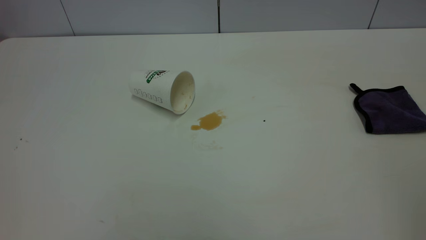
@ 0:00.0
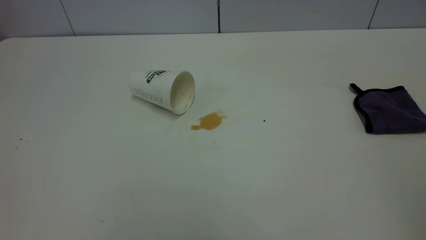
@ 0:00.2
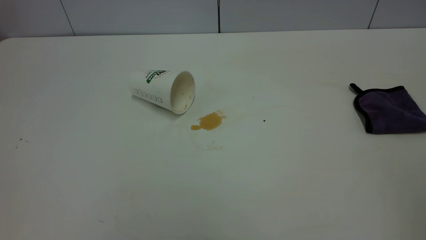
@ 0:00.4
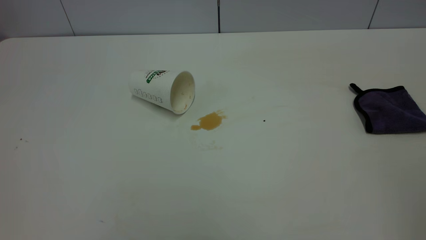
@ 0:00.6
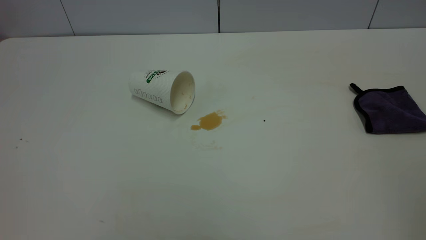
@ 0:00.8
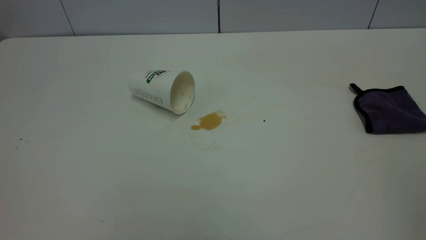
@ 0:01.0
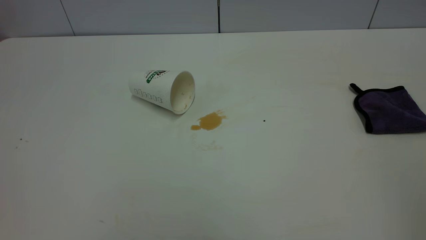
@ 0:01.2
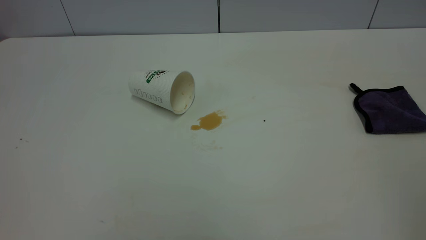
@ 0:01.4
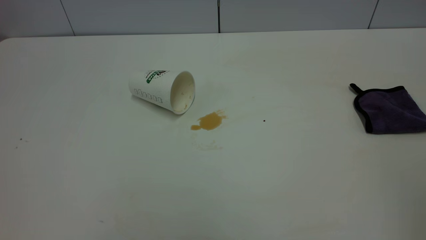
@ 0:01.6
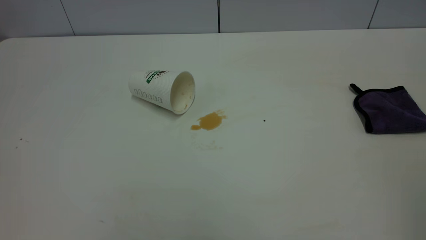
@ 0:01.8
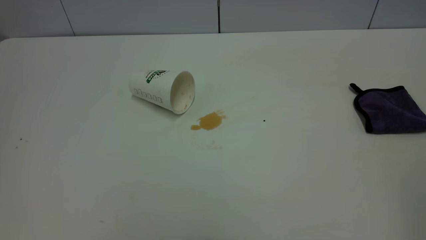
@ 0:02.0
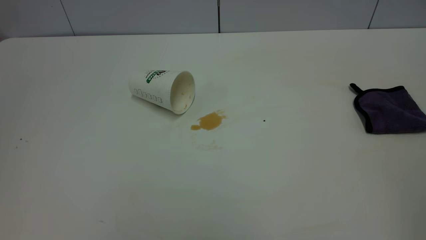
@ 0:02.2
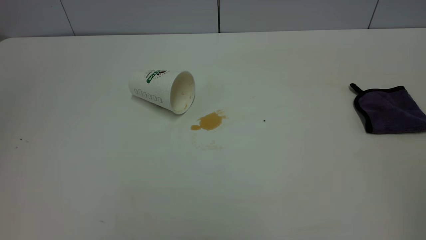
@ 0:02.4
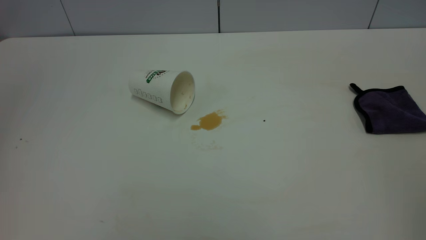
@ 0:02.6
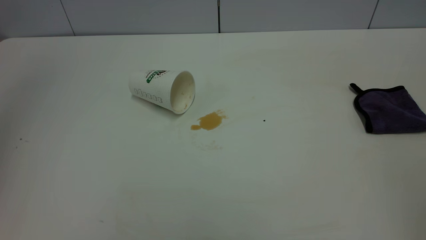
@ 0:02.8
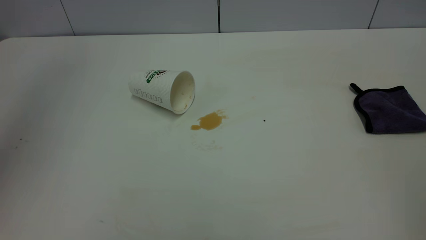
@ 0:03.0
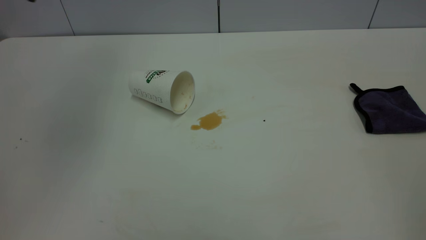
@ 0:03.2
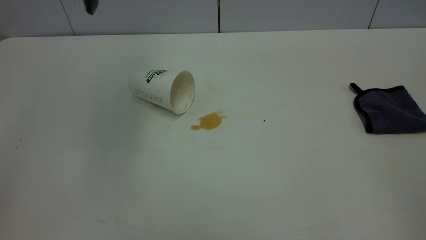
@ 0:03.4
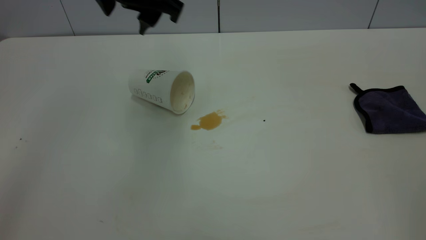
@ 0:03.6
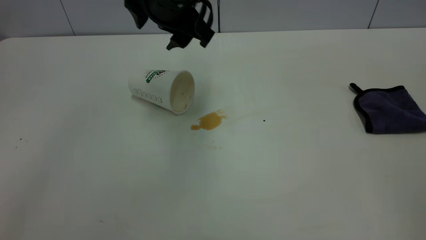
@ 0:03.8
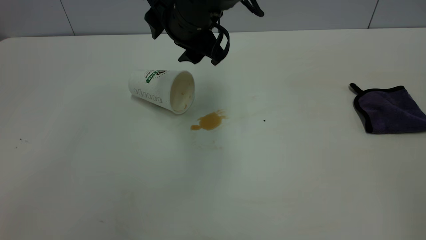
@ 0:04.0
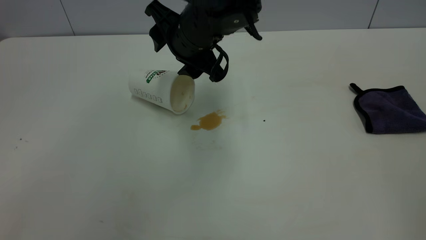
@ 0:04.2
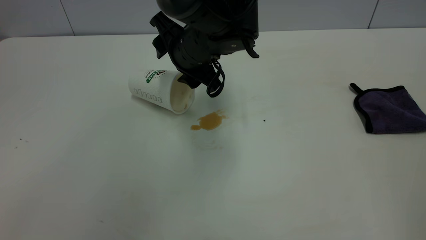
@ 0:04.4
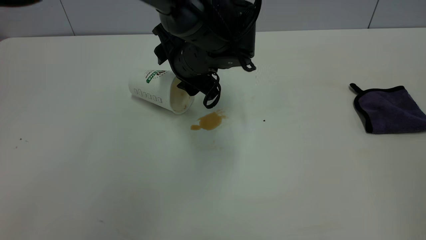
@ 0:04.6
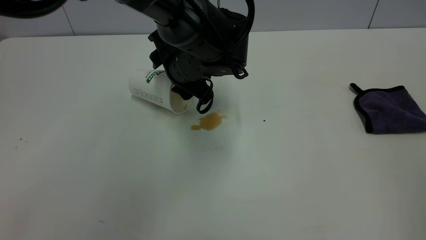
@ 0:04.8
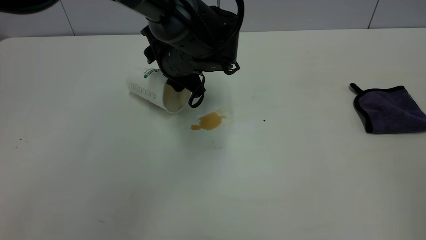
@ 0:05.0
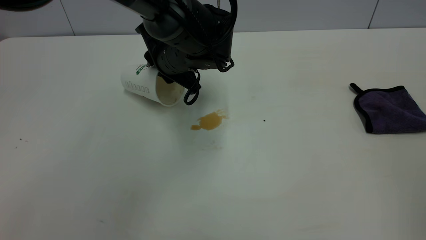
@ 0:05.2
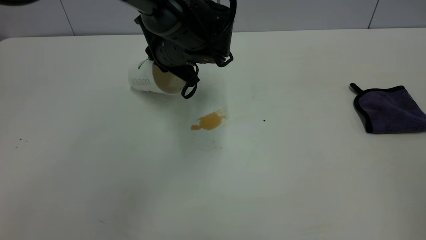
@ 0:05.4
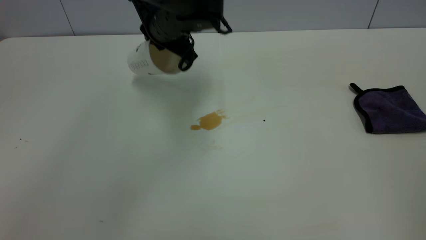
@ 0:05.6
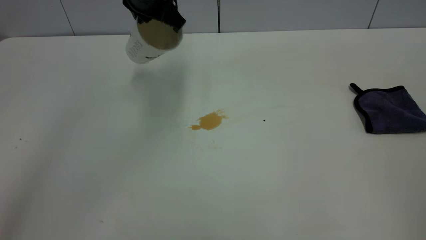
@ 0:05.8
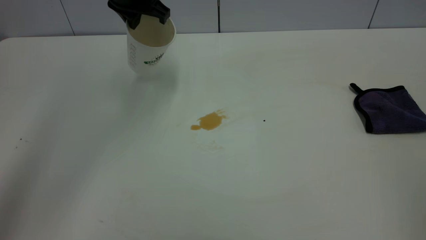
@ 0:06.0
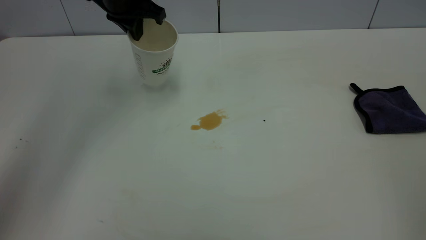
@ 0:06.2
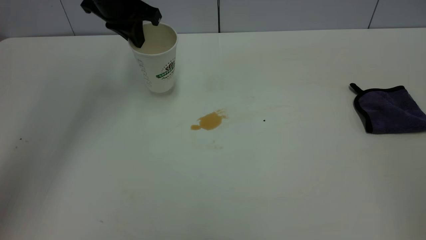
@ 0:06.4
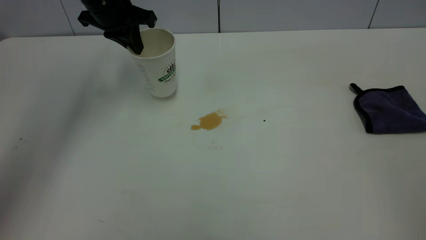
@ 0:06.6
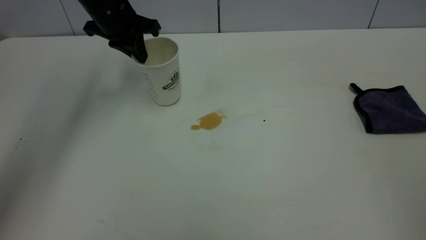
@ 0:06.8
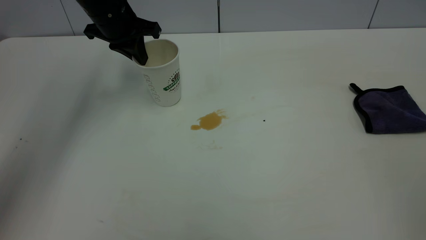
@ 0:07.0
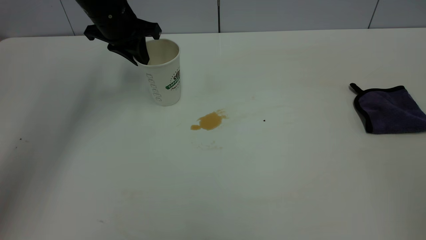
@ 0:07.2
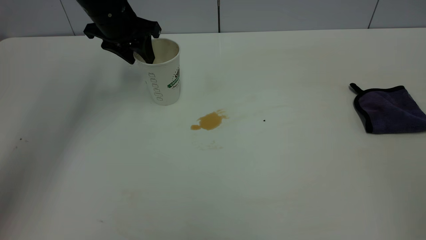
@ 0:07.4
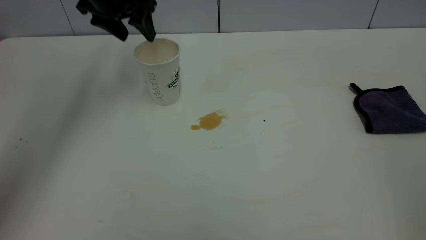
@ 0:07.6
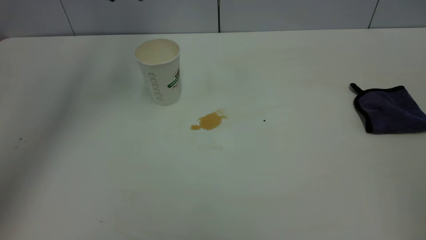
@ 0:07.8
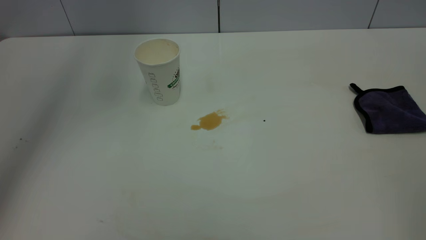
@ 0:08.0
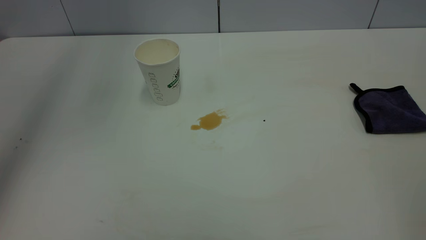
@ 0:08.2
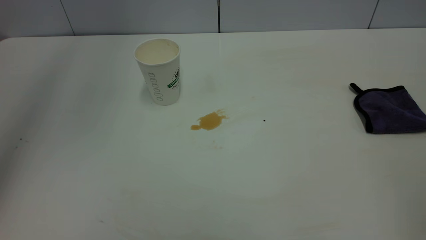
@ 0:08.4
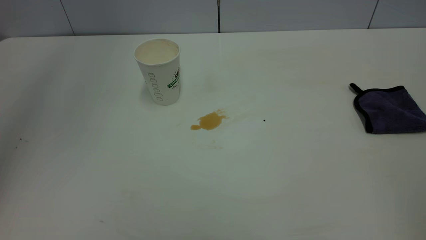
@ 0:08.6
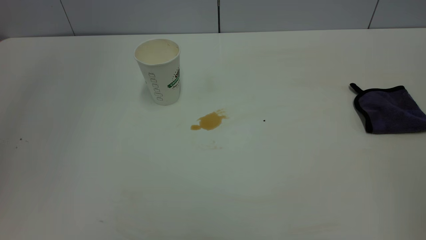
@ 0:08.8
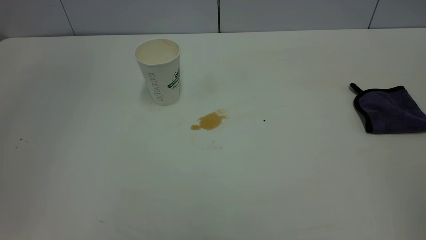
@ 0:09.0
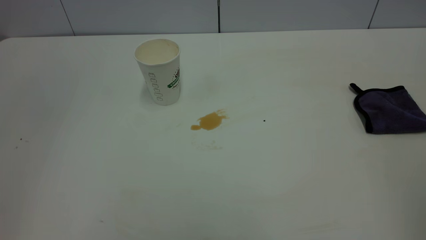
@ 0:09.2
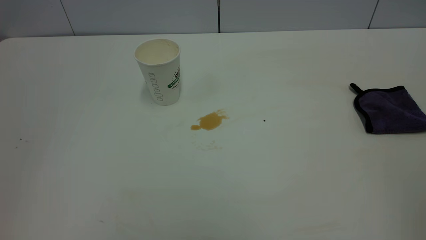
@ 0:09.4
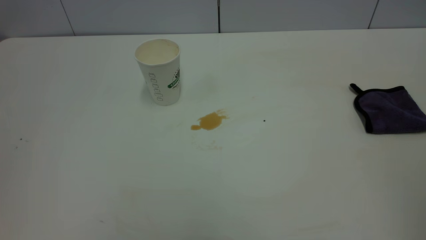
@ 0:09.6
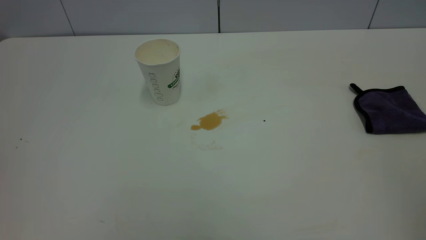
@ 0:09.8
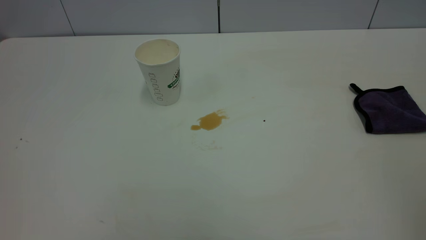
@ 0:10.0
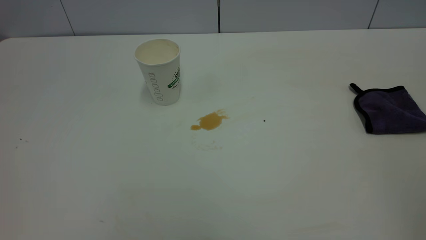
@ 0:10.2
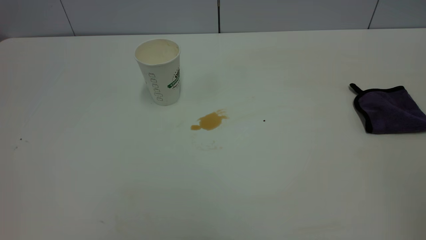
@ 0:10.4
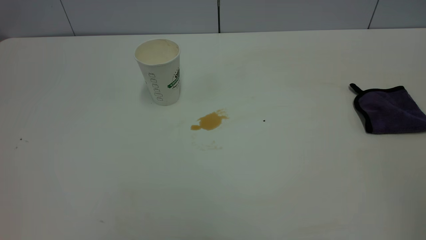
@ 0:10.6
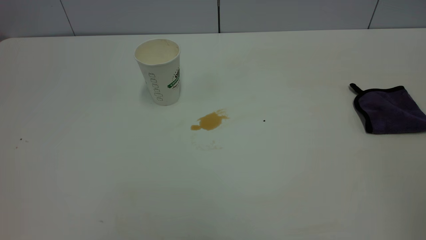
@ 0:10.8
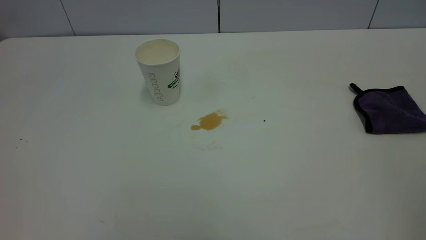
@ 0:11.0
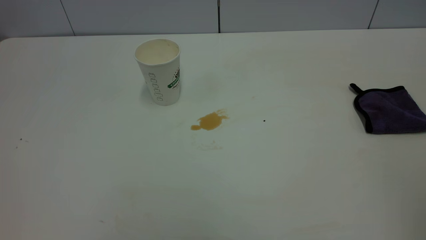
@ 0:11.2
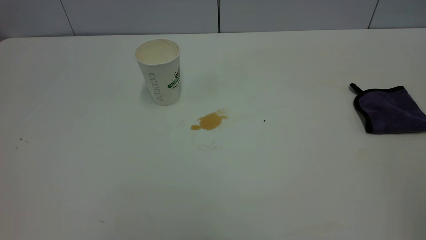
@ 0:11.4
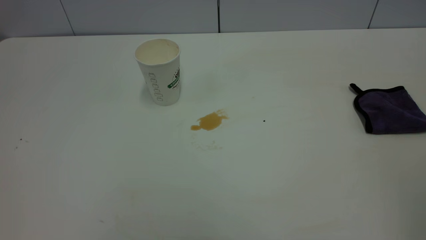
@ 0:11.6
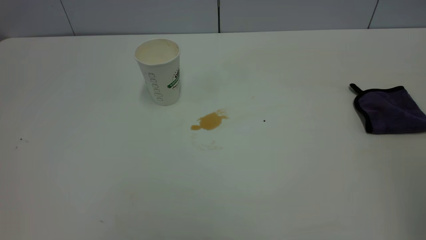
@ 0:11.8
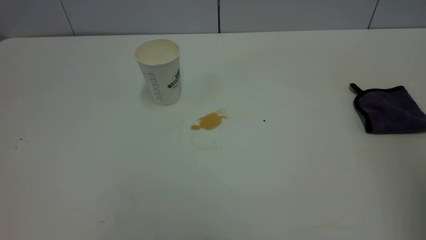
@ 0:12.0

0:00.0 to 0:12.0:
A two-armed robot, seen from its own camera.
Task of the whole recording: the left gripper pick up the fallen cup and place it upright, the right gripper grasp the purple rag and wipe the tea stain on the table, the right gripper put the purple rag back in its original position.
Step, 0:00.0 to 0:07.6: Stand the paper cup upright.
0:00.0 to 0:01.6: The two grippers keep their place.
0:01.6 to 0:03.0: The left gripper heads forward, covering approximately 30 cm, and opens its fingers.
0:03.0 to 0:04.4: The left gripper moves to the right and downward, approximately 35 cm.
0:04.4 to 0:06.0: The left gripper shifts approximately 15 cm to the left, upward and forward, and closes up.
0:06.0 to 0:07.6: The left gripper moves to the left, about 5 cm, and opens its fingers.
0:07.6 to 0:09.0: The left gripper heads backward and upward, covering approximately 35 cm, and closes up.

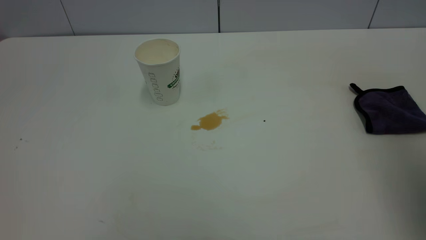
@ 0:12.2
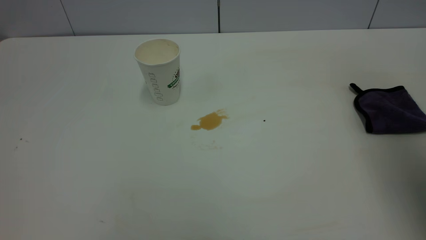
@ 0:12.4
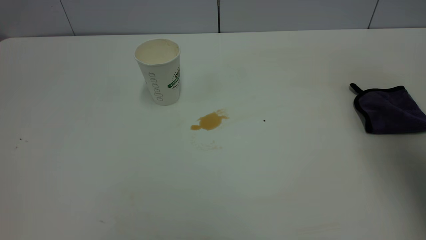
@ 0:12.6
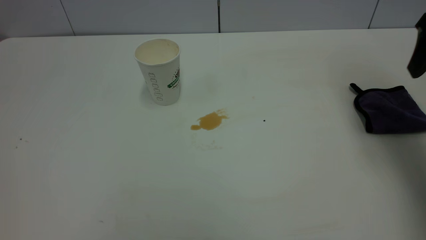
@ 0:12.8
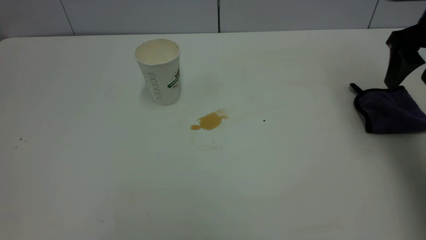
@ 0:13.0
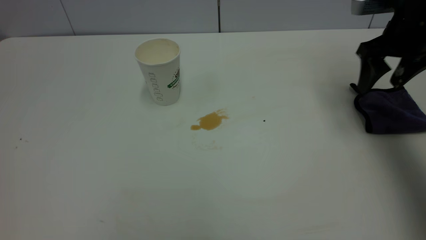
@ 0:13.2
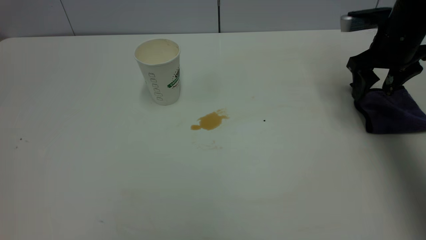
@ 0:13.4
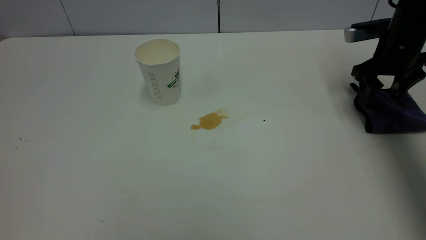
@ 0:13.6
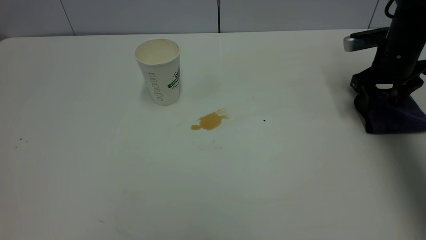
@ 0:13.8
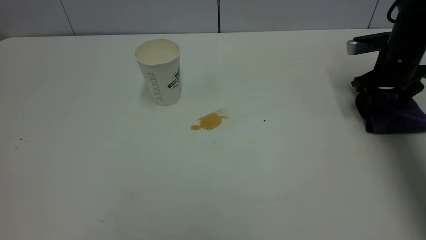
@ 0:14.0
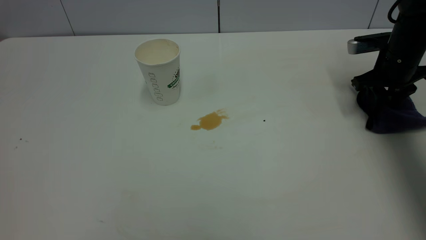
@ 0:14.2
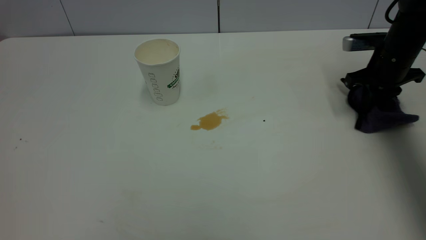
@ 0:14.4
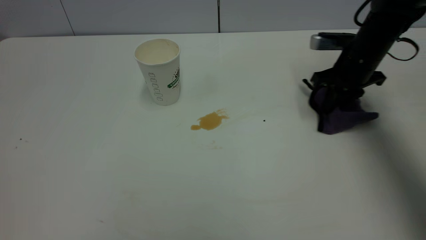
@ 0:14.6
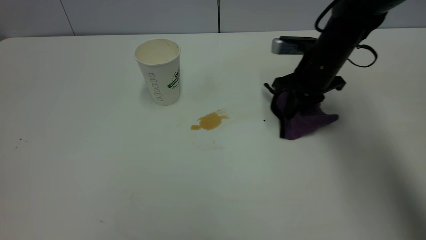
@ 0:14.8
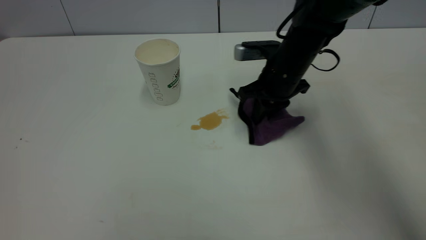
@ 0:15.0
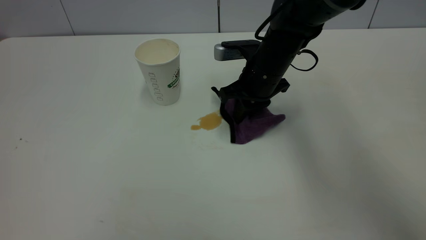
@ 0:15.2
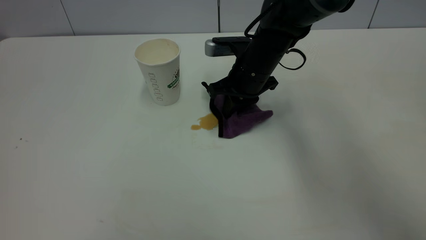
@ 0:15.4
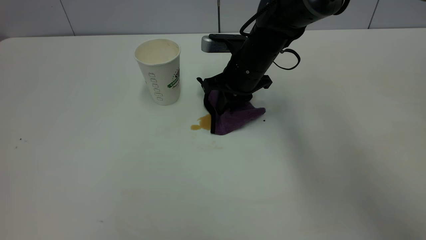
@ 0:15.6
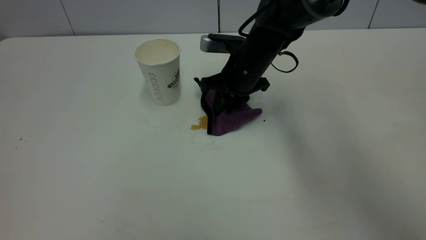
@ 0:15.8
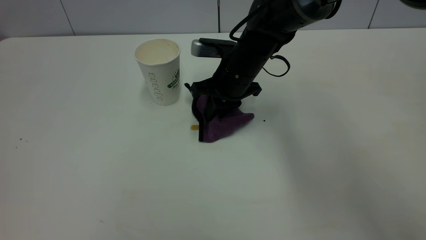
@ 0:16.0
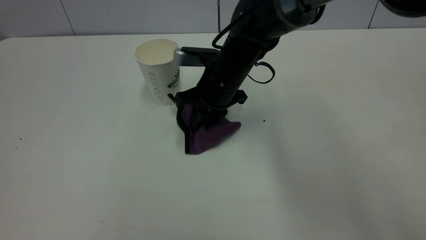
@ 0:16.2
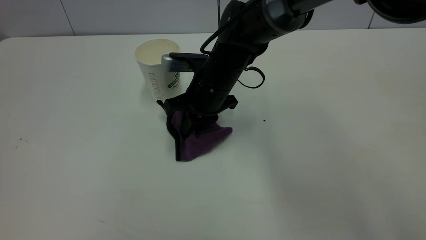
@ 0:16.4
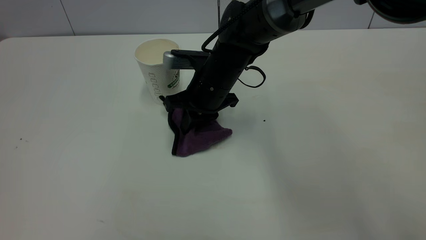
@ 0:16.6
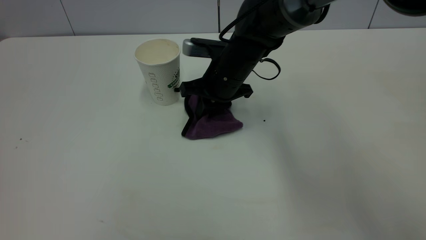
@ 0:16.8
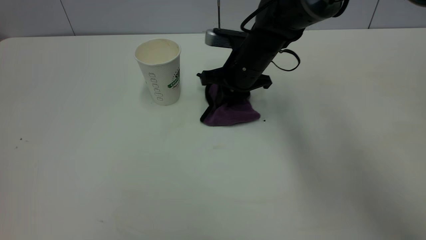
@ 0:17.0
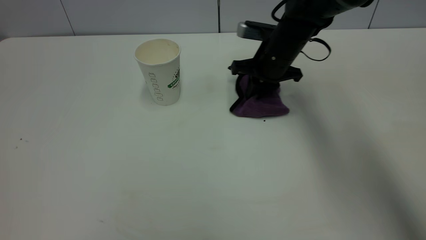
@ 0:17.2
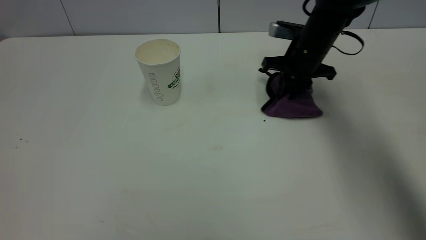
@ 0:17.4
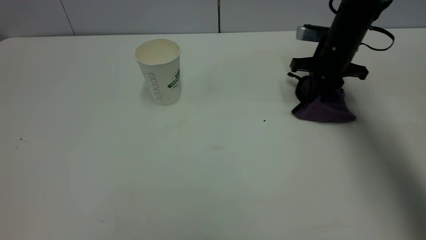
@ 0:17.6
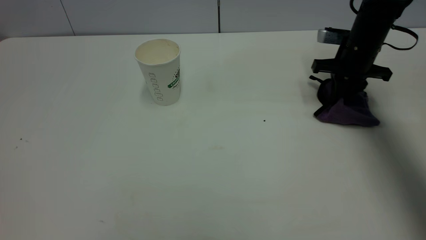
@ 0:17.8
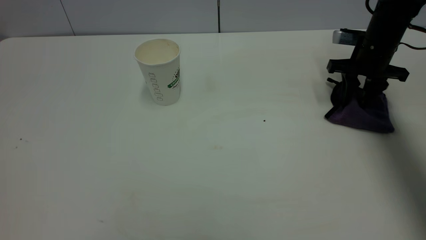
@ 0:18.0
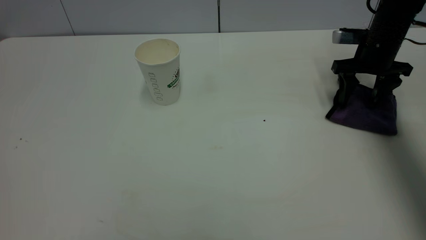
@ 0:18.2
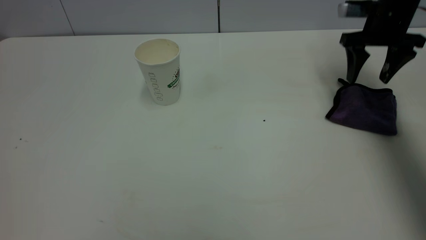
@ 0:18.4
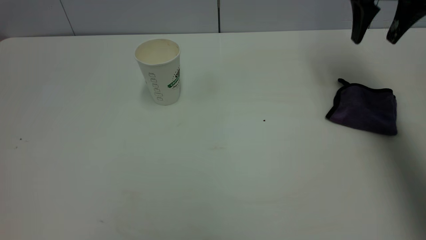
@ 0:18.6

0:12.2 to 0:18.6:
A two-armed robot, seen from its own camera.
Task of the whole recording: the left gripper pick up the fallen cup and place it upright, the right gripper grasp the purple rag and wipe the tea stain on the table, the right gripper put the purple rag back in its original position.
Step, 0:12.2 to 0:18.6: Wipe the stains off the table with a rag.
0:12.2 to 0:13.8: The right gripper shifts about 40 cm downward and forward.
0:13.8 to 0:15.4: The right gripper heads to the left, covering roughly 25 cm, and closes up.
0:15.4 to 0:17.0: The right gripper moves roughly 5 cm to the left and comes back.
0:17.0 to 0:18.6: The right gripper heads to the right and upward, covering about 25 cm, and opens up.
